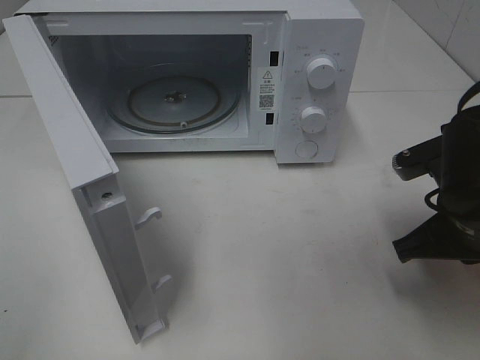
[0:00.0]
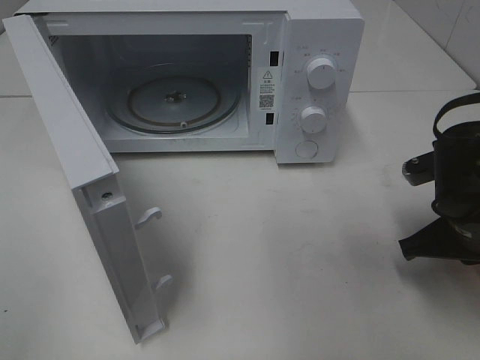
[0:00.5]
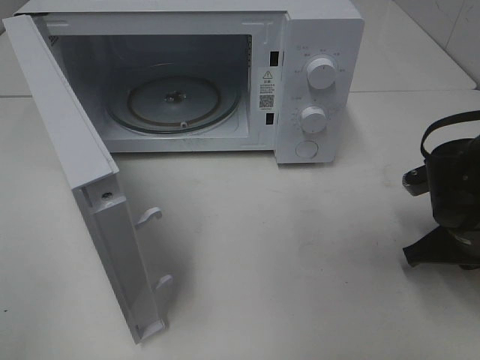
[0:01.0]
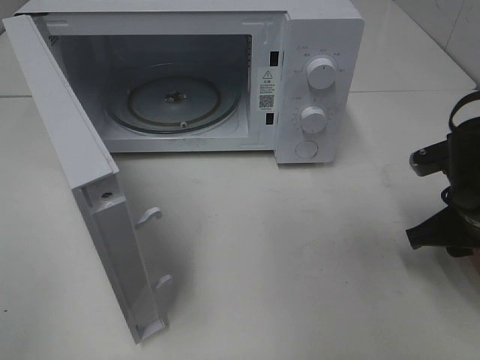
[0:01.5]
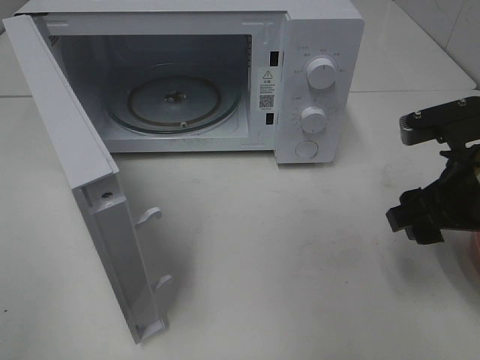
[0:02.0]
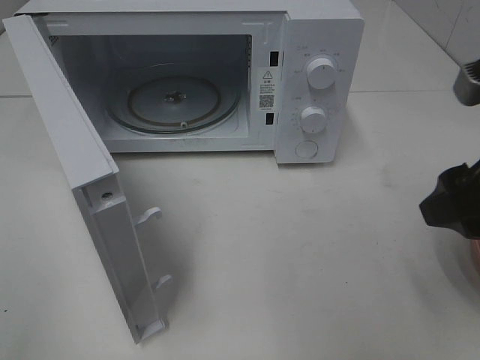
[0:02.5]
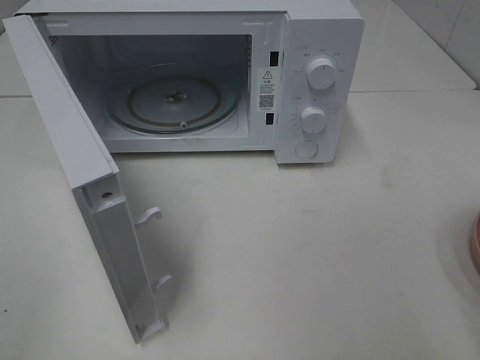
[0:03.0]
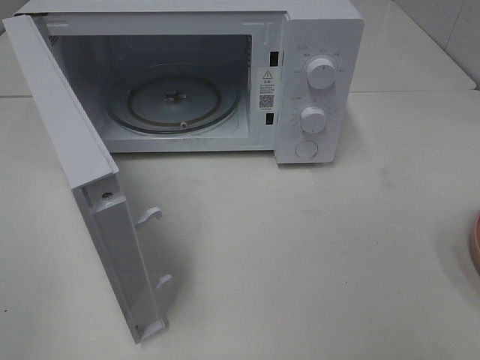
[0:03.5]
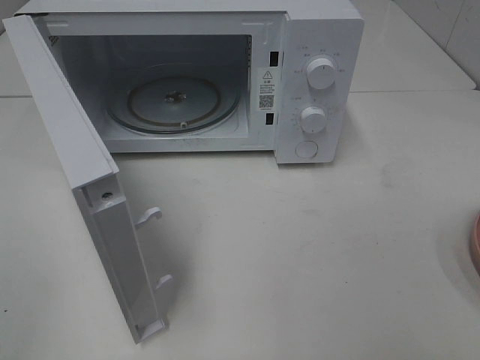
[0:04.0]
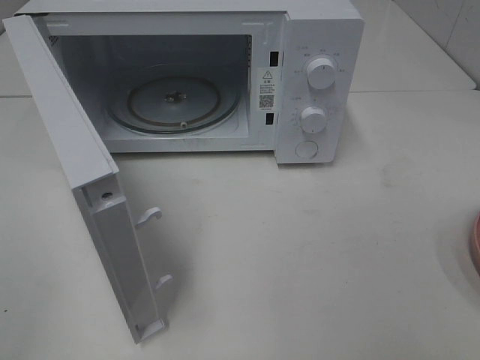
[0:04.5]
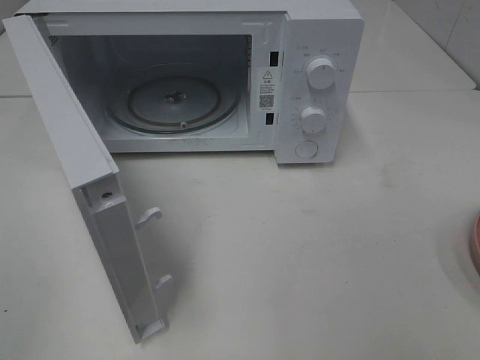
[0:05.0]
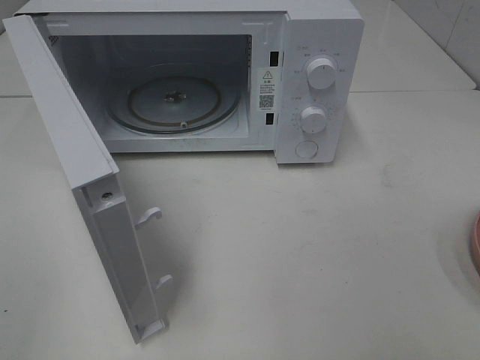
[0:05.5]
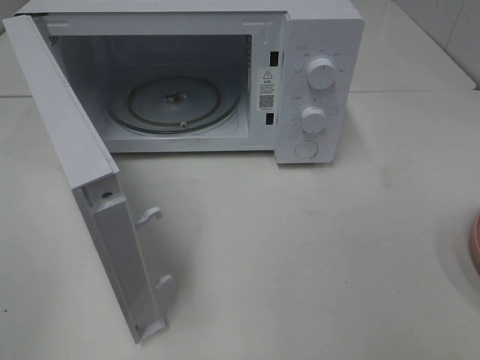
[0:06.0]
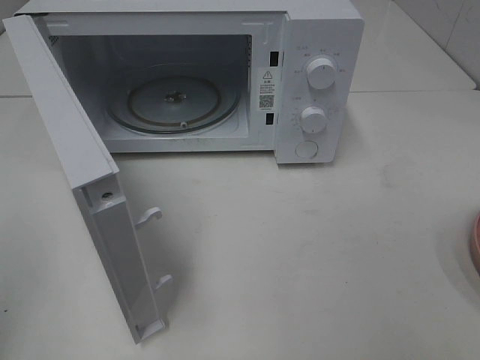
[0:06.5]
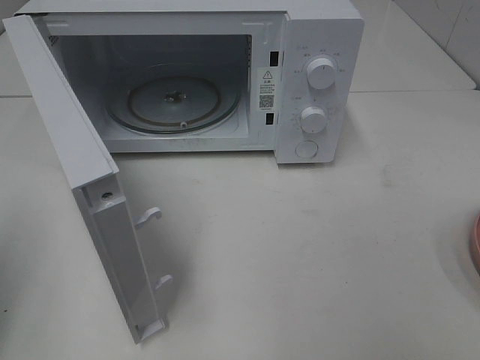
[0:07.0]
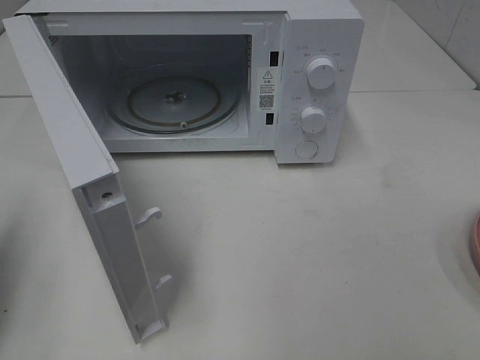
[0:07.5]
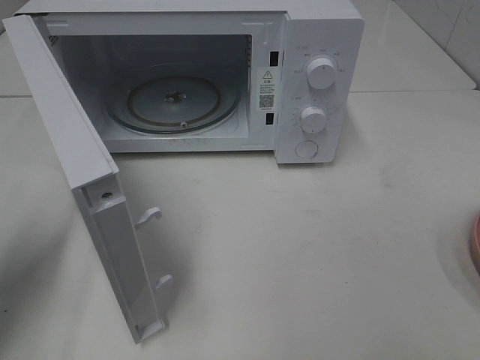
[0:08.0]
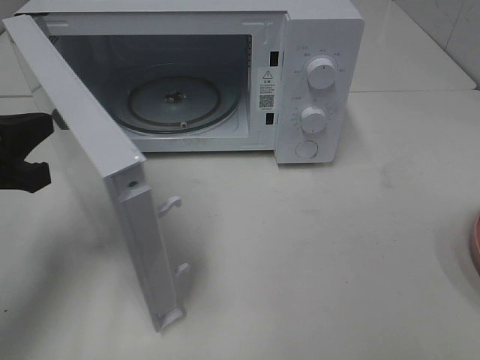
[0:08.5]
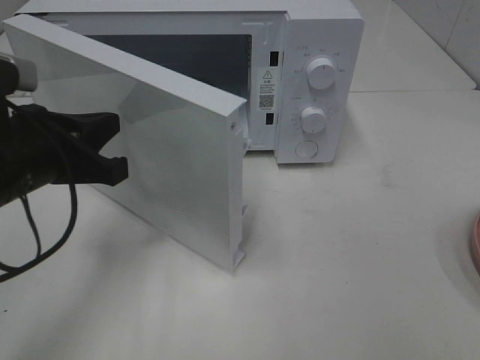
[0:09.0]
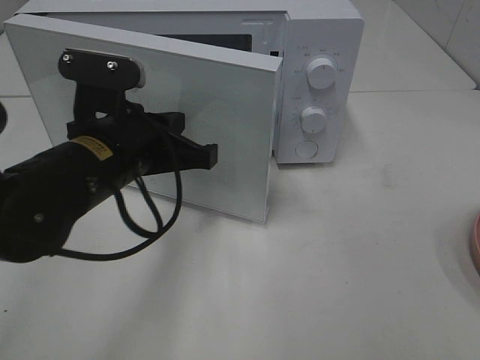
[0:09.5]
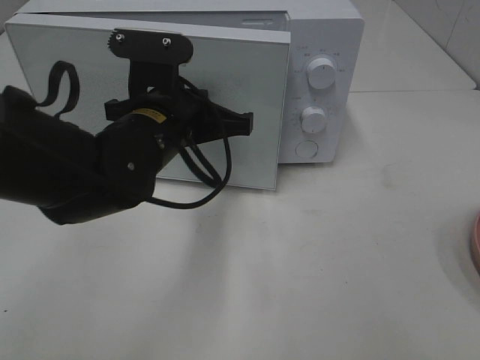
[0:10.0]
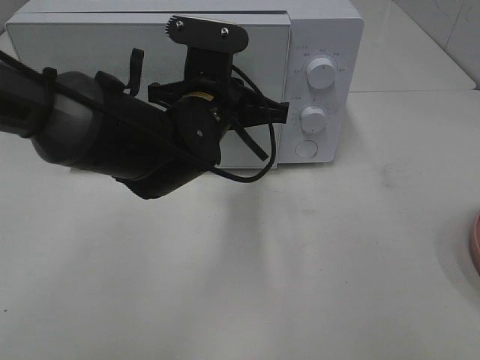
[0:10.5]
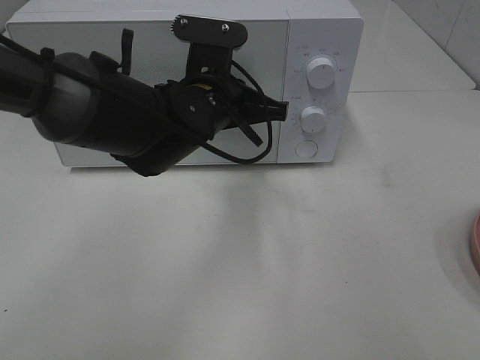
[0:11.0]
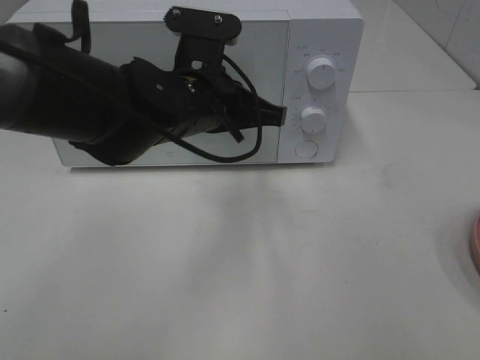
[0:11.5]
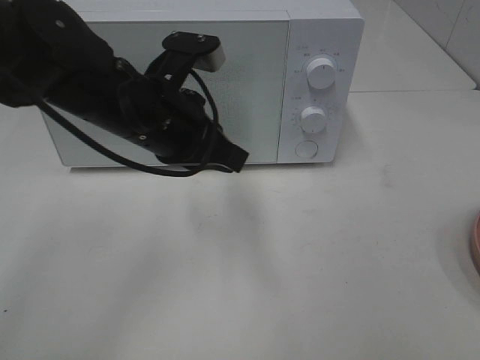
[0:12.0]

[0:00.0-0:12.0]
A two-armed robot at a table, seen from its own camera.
Task of the whole recording: Heat the burger.
Step, 0:02.0 to 0:11.5: Left hand: close the microwave door.
0:00.0 to 0:02.0: The right gripper opens up.
0:02.0 to 0:04.0: The right gripper travels backward and upward by approximately 25 cm.
0:04.0 to 0:06.0: Both grippers stay about where they are.
0:06.0 to 0:08.0: The left gripper travels forward and downward by roughly 20 cm, and closes its fingers.
0:08.0 to 0:10.0: The left gripper shifts roughly 25 cm to the right.

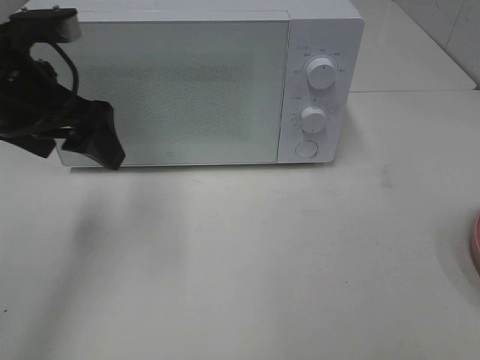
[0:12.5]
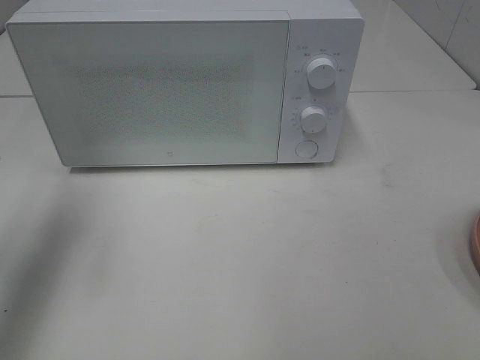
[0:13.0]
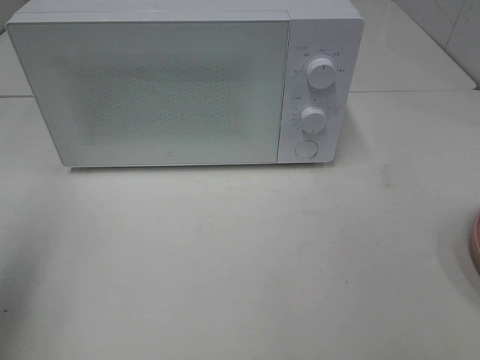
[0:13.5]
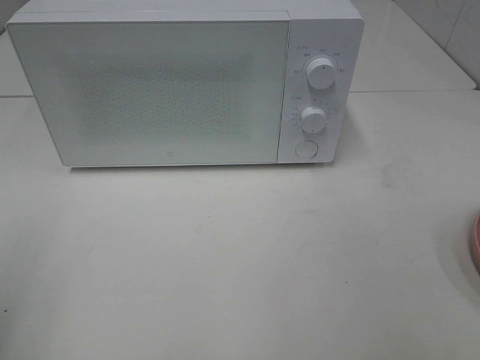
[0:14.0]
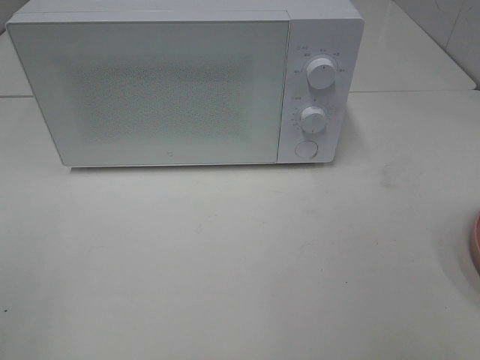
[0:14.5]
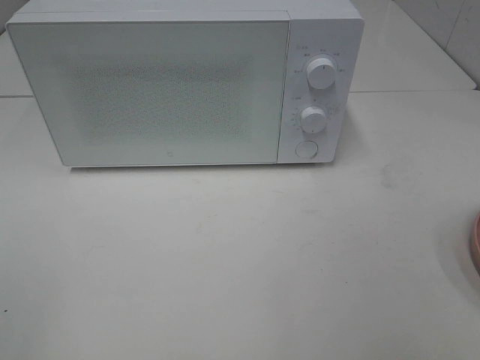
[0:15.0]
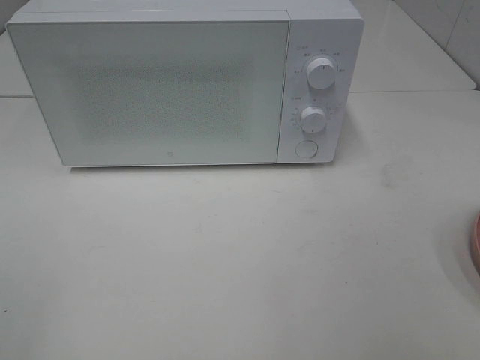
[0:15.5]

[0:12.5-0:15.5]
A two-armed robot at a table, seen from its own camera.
Task of the whole recording: Heat the burger.
0:12.5 to 0:14.0: The left gripper heads backward and to the left, covering about 25 cm.

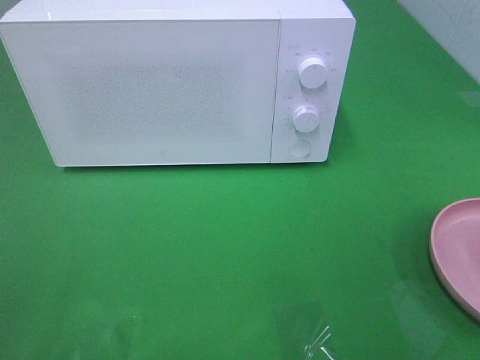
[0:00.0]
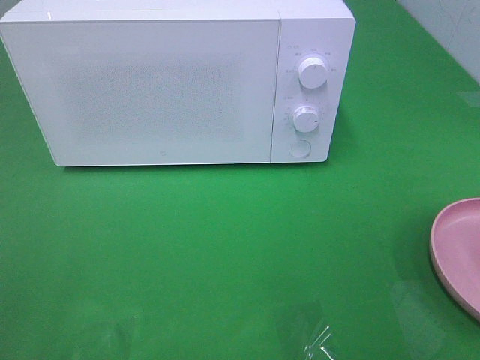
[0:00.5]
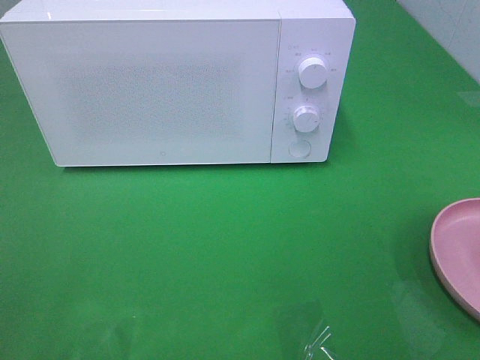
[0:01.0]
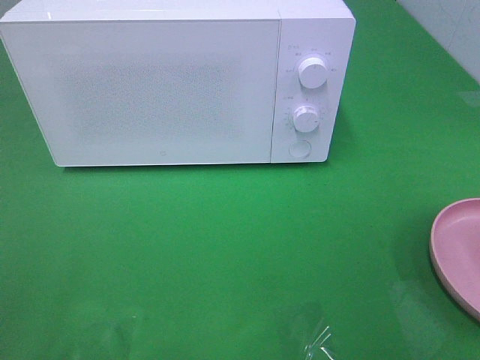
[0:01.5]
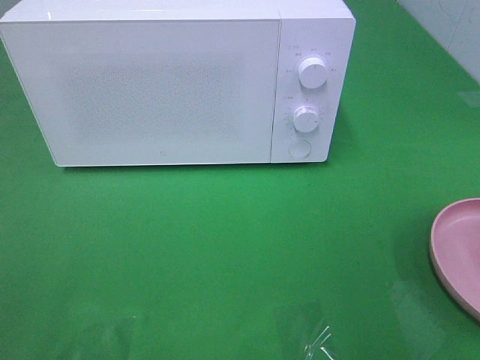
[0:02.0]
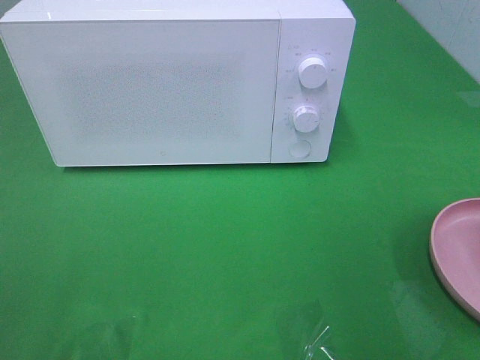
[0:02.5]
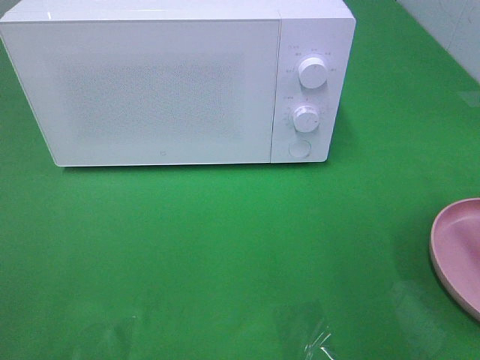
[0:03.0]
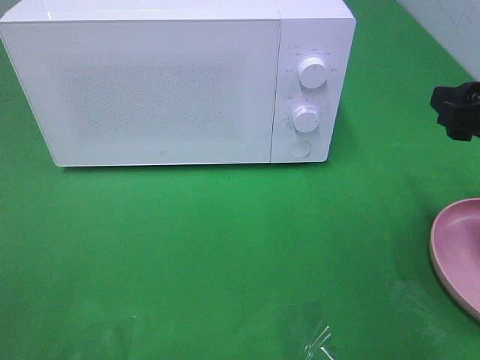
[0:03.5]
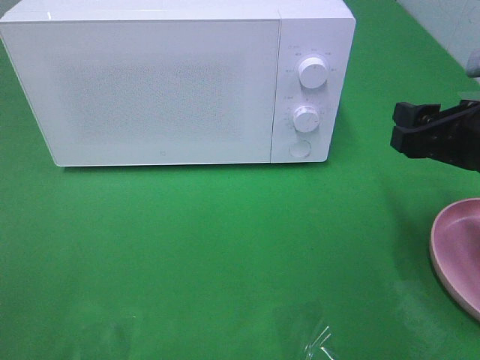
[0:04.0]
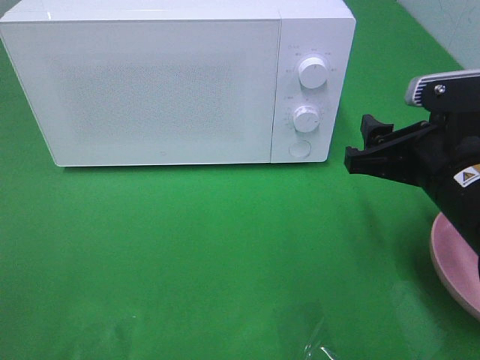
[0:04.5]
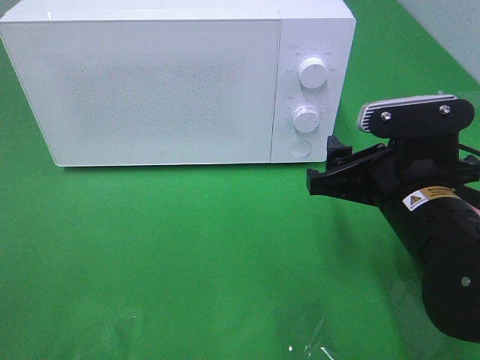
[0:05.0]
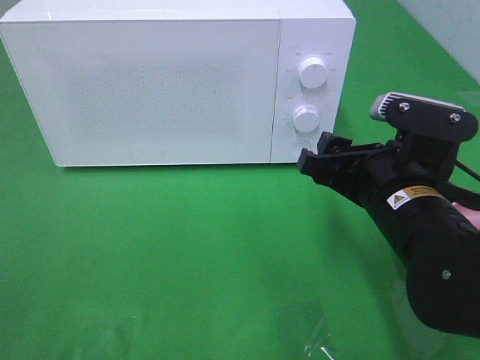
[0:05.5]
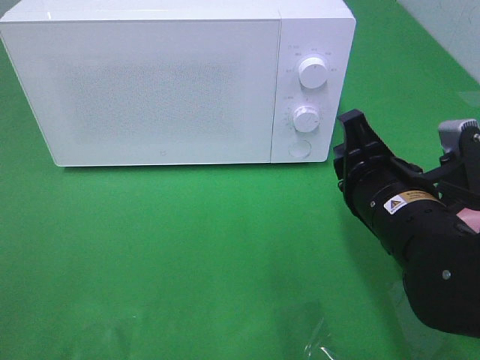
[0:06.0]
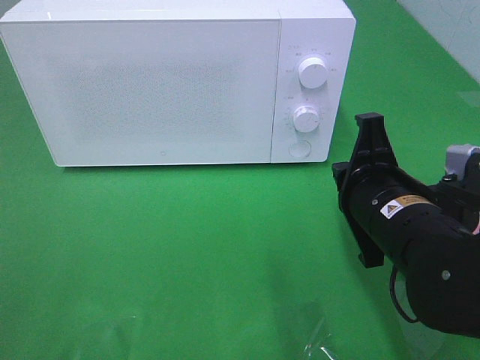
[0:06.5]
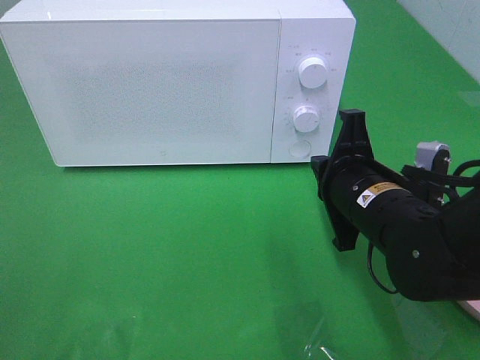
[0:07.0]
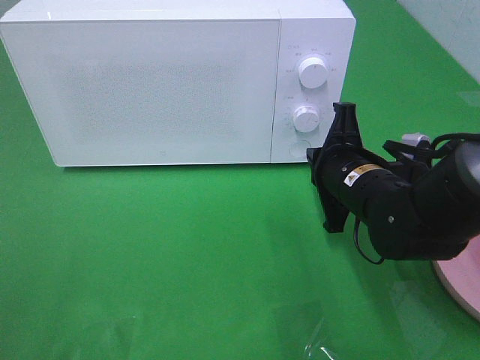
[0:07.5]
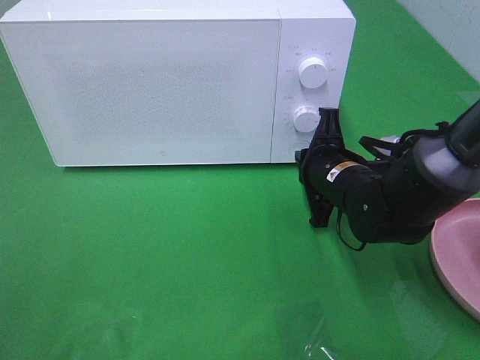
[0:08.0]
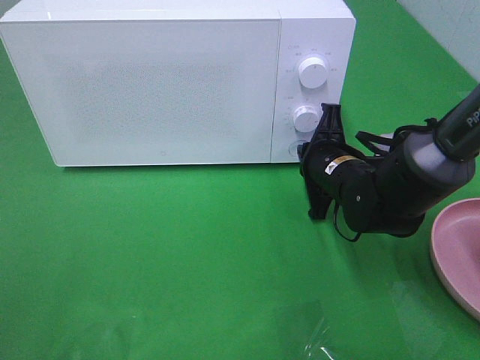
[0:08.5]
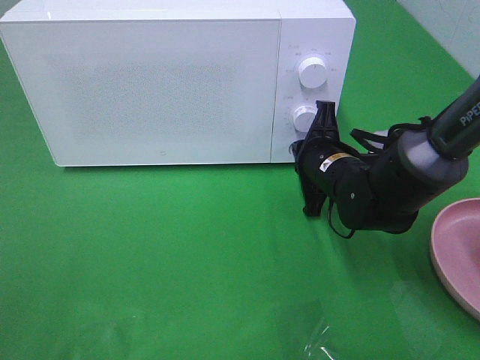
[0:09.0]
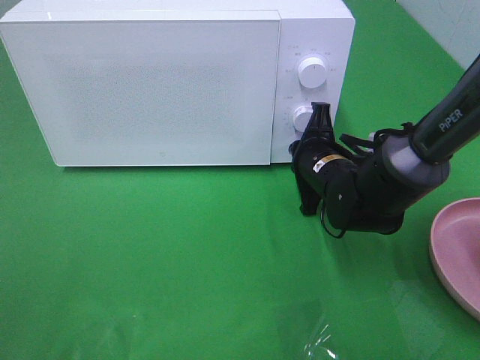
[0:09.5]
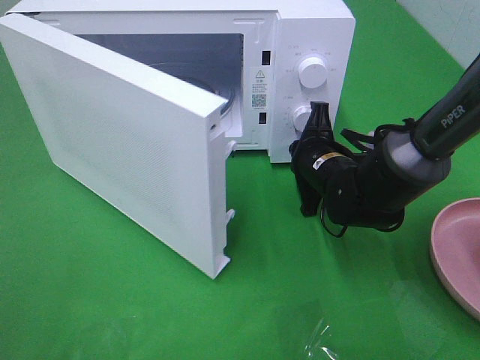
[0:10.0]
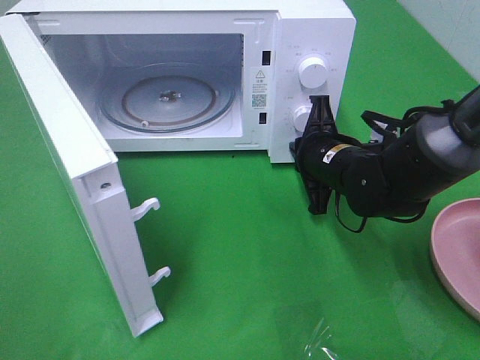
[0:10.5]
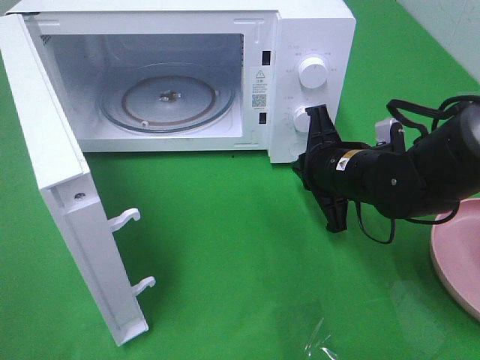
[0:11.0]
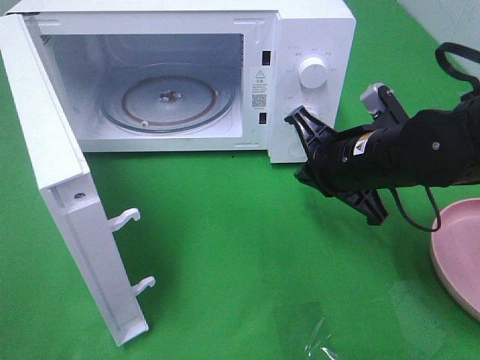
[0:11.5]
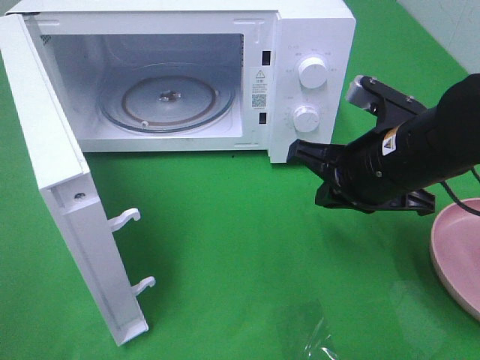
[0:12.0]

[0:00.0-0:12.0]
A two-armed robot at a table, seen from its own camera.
Task of the whole recording: Heat the burger.
Step, 0:00.0 to 0:11.0: Right hand: press the switch.
0:02.0 to 0:04.0: The right gripper heads forward and downward, covering approximately 20 cm.
0:04.0 to 0:06.0: The right gripper goes roughly 10 cm to the left and downward, and closes its fingers.
0:06.0 to 0:08.0: The right gripper is displaced forward and downward by some 15 cm, and closes its fingers.
0:10.0 to 0:12.0: The right gripper shifts about 15 cm upward and backward.
